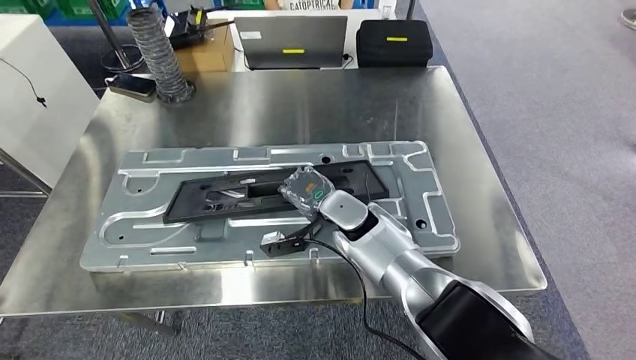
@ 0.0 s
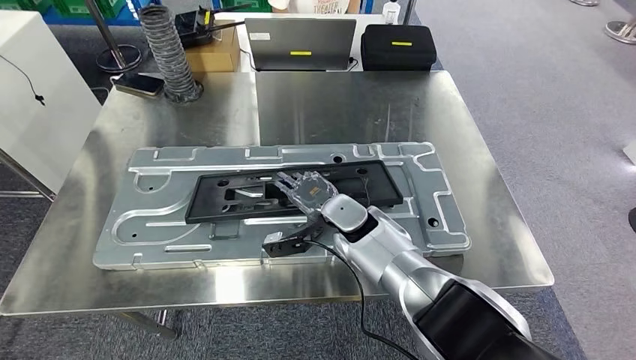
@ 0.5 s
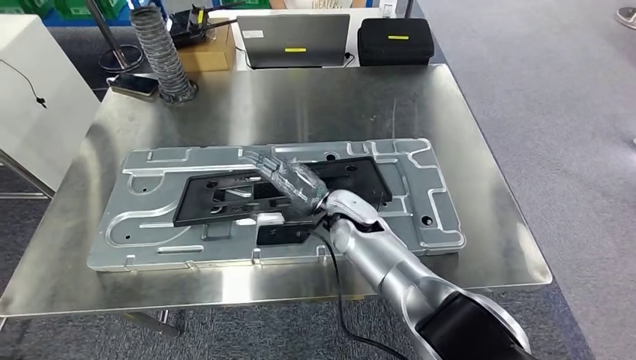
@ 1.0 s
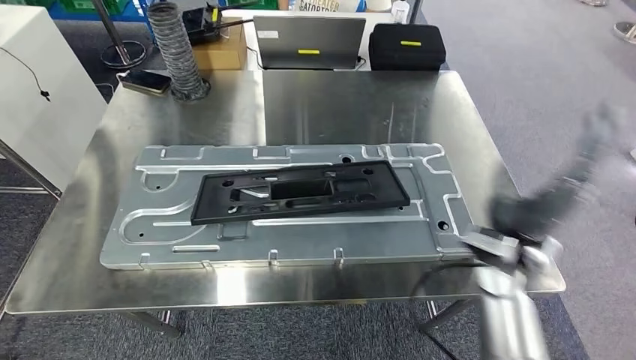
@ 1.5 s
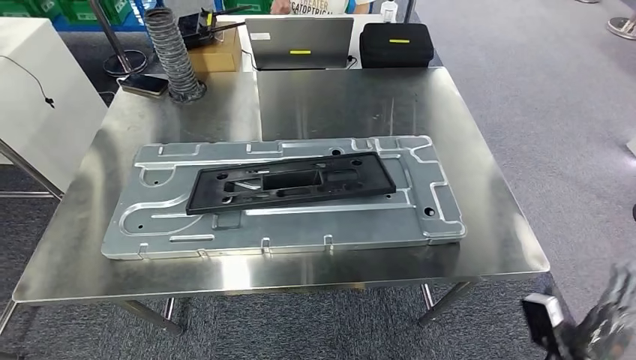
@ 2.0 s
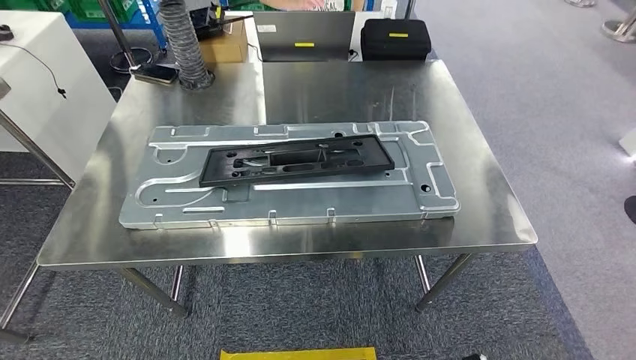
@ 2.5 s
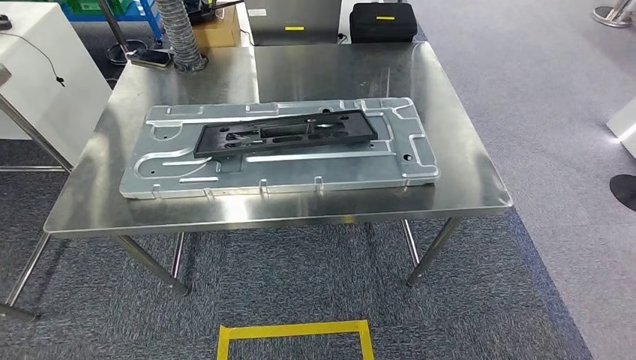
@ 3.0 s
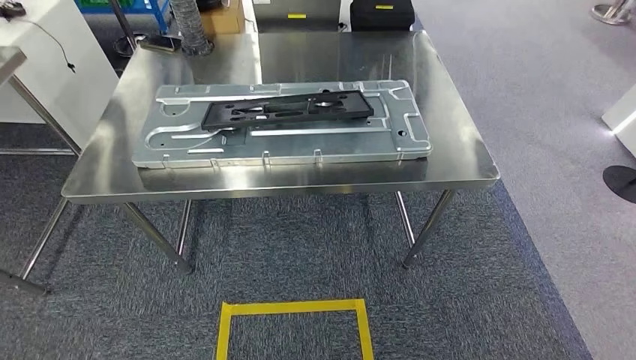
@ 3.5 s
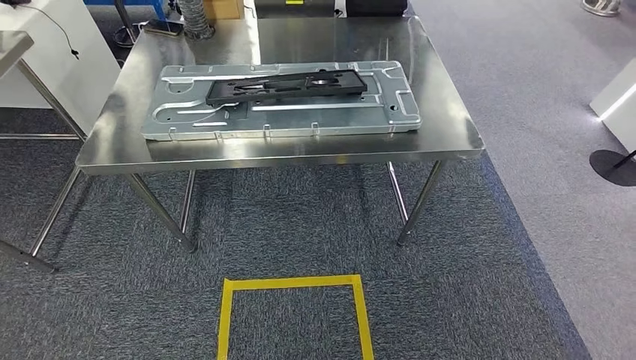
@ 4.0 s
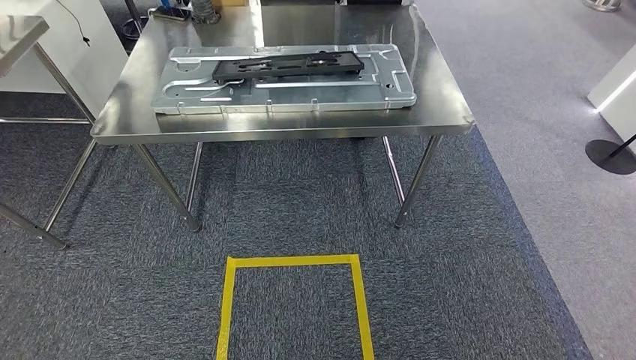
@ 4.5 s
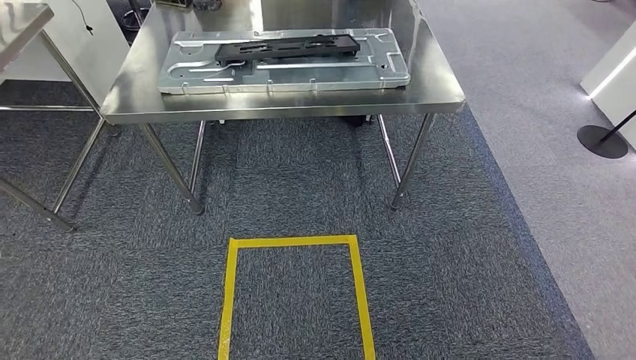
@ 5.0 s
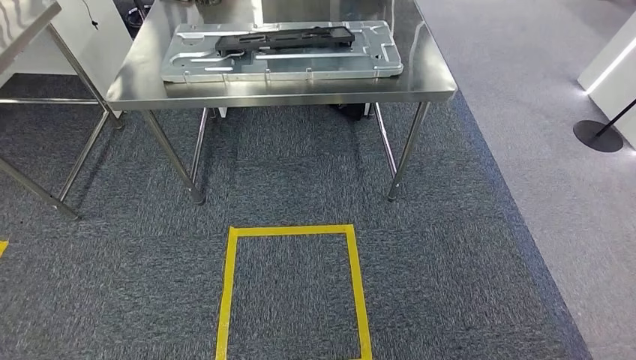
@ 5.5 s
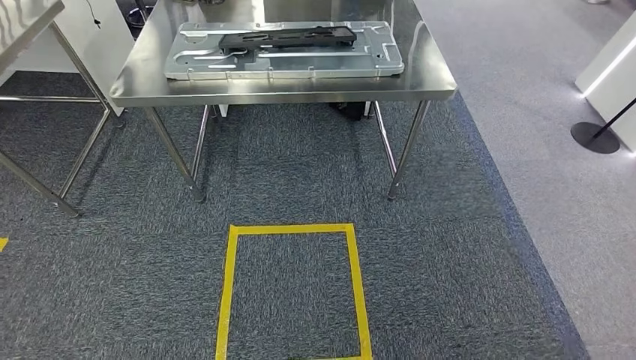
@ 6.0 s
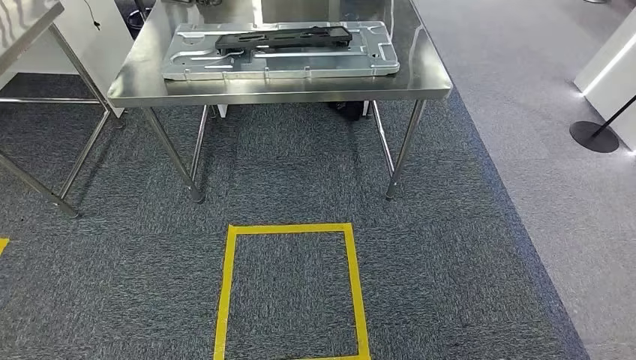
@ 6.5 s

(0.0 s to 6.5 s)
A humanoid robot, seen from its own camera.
Step, 0.0 s - 2.5 s: Insert the large material into the corresponding slot on the workbench.
Step, 3.0 s - 6.0 s: Return to the initial position at the shelf.
